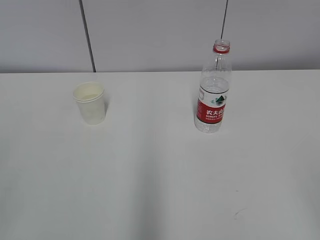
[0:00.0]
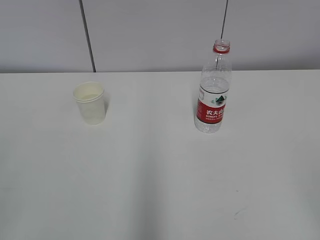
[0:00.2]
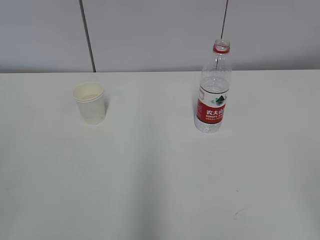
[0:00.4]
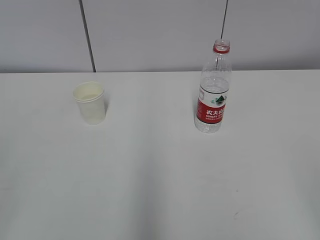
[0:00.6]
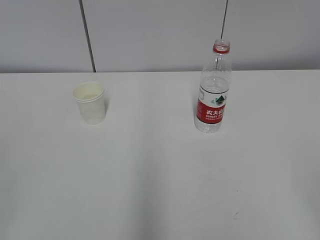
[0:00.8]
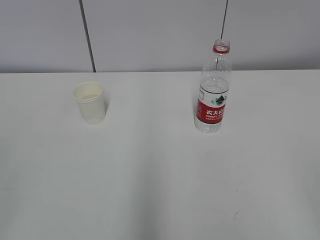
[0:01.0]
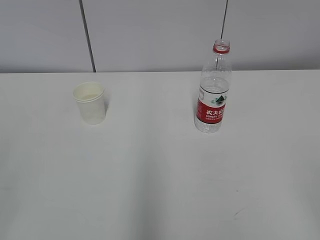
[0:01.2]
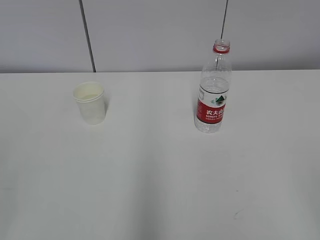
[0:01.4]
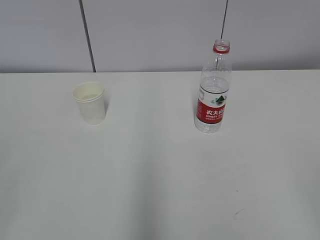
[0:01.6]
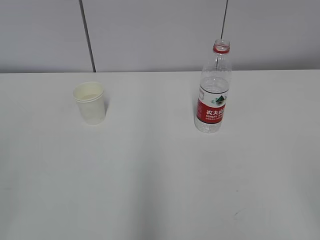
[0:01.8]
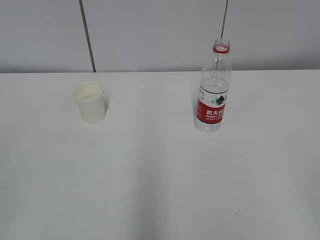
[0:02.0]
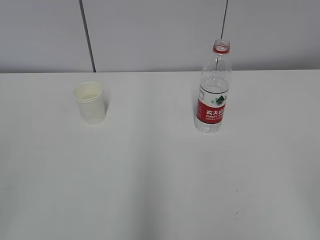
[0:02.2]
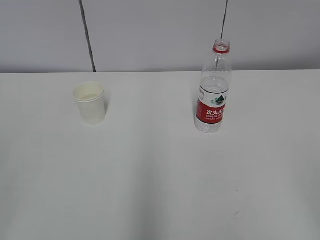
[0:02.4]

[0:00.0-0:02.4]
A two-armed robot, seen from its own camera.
0:00.0 to 0:02.4: Both grippers stay put.

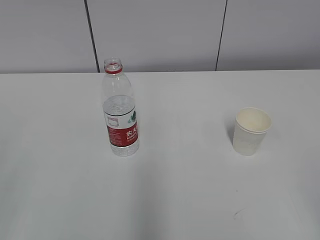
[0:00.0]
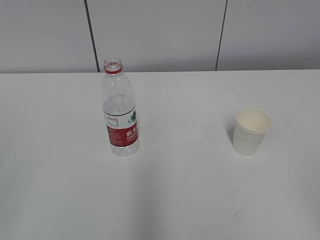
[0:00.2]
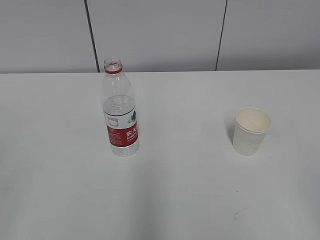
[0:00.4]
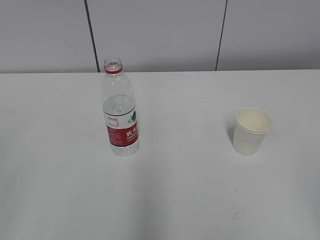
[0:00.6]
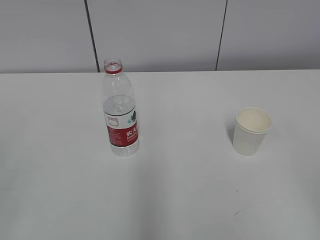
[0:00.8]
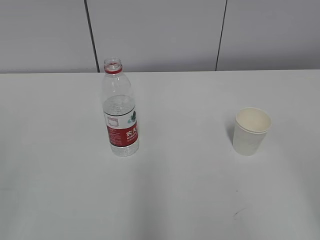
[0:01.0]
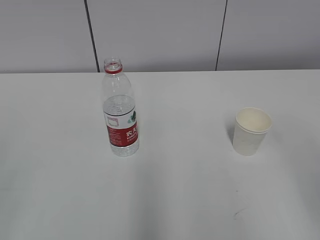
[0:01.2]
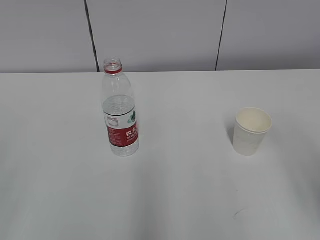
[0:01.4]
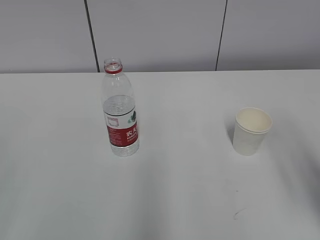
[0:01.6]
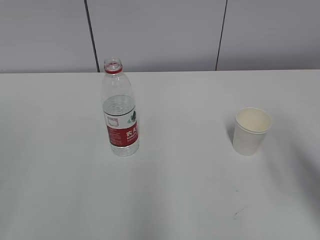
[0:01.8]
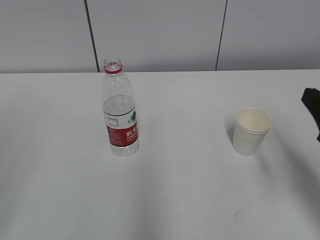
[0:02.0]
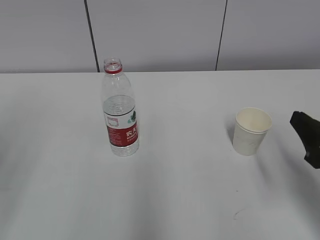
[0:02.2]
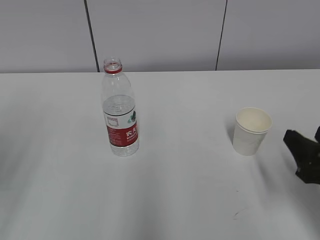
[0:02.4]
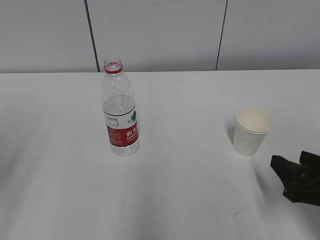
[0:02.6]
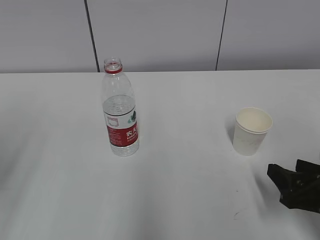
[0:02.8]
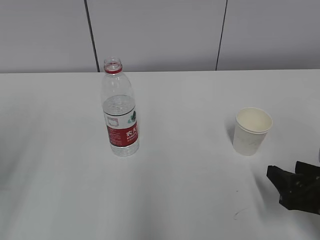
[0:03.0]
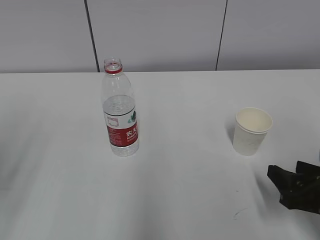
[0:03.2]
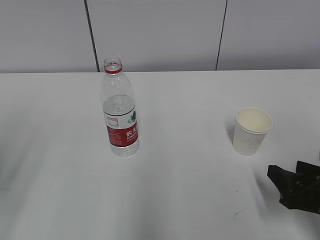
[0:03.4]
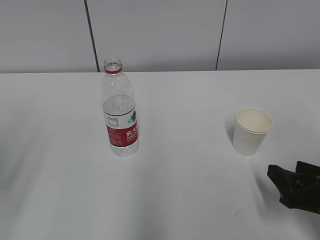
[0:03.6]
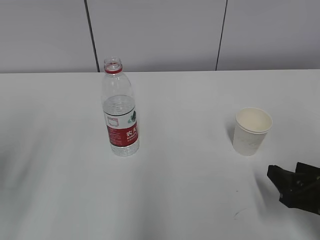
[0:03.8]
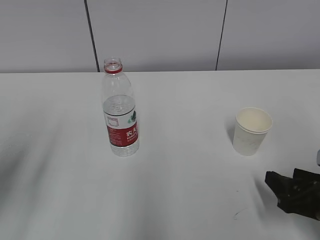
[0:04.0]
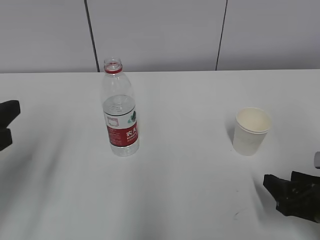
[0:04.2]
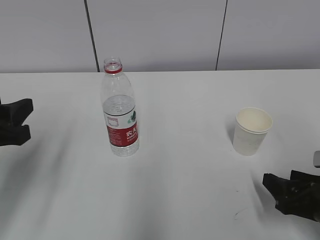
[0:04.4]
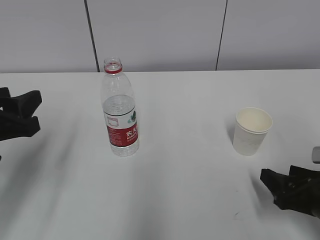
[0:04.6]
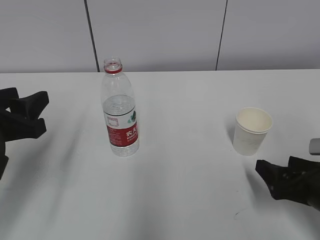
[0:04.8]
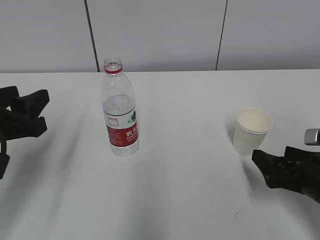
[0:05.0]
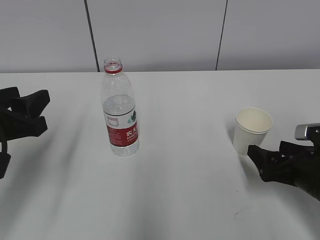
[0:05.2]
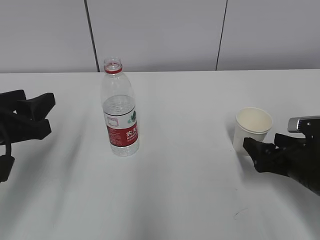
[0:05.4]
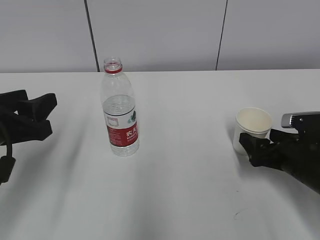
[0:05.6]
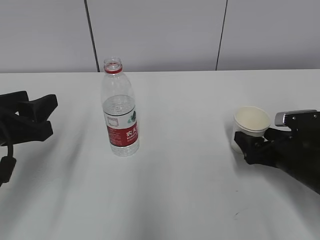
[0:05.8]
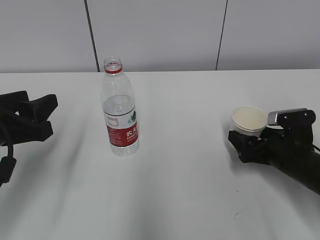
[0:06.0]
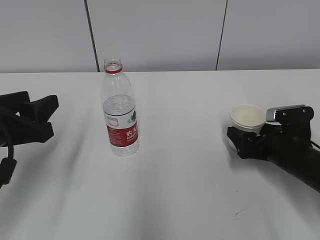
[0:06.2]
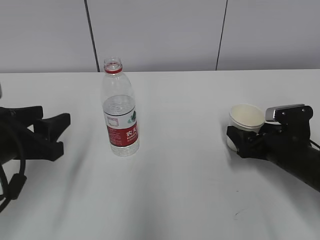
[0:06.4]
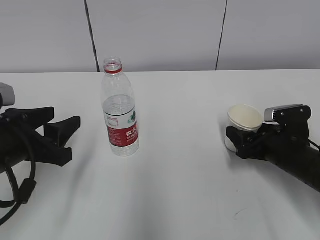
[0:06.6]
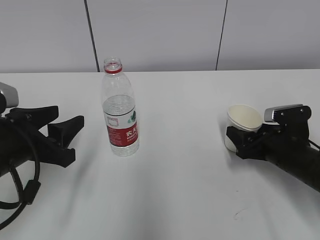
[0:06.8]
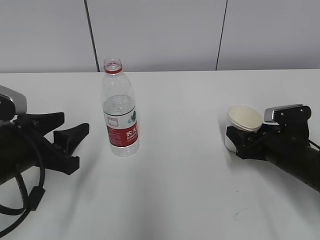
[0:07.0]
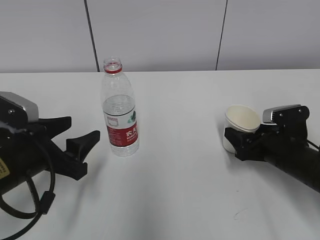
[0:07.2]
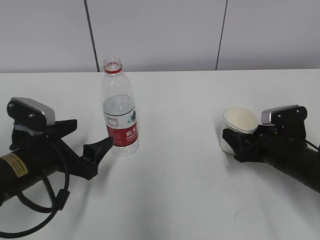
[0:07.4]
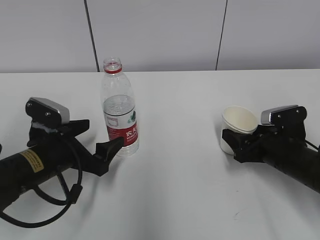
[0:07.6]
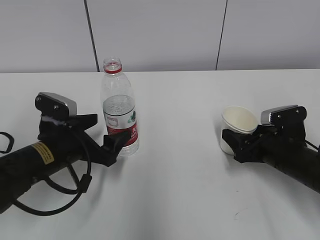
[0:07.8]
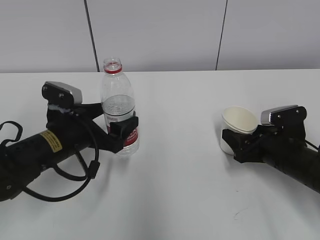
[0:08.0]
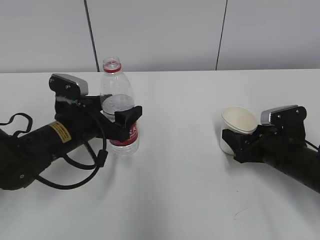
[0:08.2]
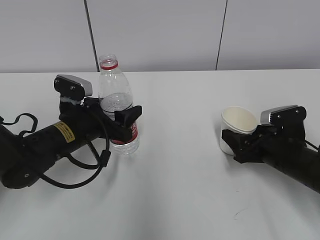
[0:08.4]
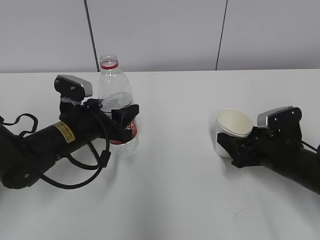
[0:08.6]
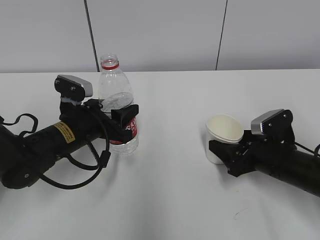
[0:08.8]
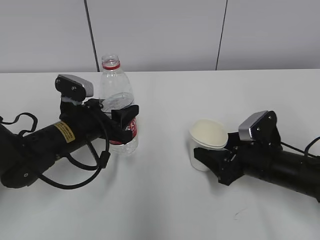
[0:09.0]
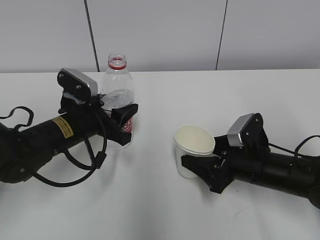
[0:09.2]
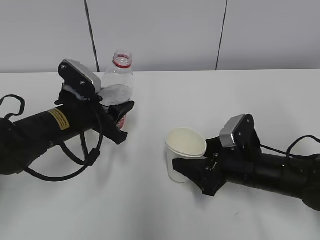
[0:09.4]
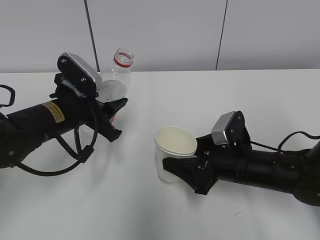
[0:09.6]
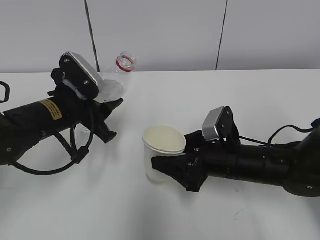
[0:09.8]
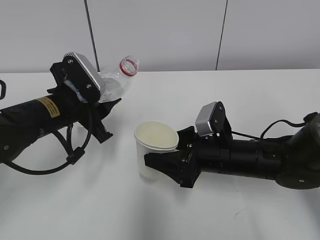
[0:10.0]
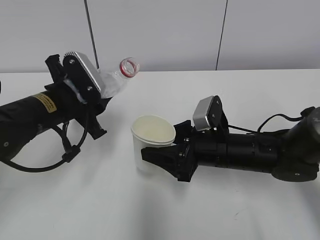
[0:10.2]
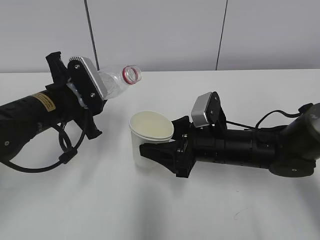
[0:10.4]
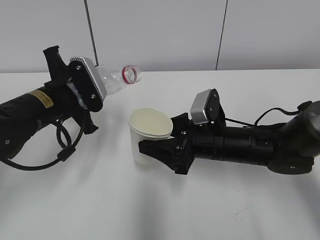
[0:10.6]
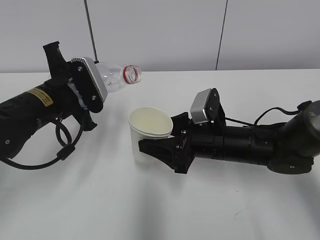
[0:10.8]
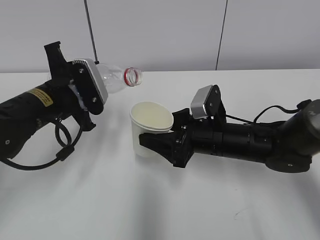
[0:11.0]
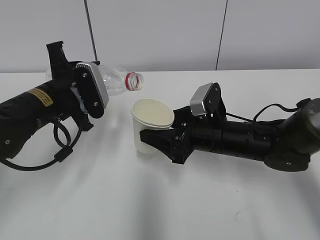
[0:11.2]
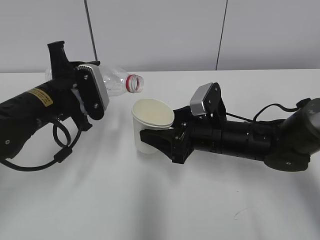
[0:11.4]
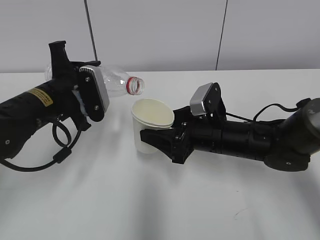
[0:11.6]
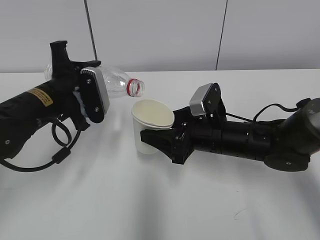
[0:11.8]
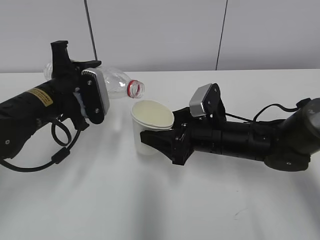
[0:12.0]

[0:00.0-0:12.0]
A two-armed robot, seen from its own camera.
Step, 0:00.0 to 0:06.8: Grab the paper cup with the right hand.
Step, 0:07.0 to 0:07.4: Grab the water bottle with the left hand.
Step, 0:07.6 to 0:10.2: Lift the paper cup with the right hand.
0:01.6 to 0:03.0: The right gripper shifts roughly 15 cm downward.
0:03.0 to 0:04.4: The left gripper goes approximately 10 cm forward, to the right and downward.
0:04.4 to 0:06.0: The right gripper is displaced forward by some 10 cm, and opens its fingers.
0:06.0 to 0:07.6: The left gripper heads downward and forward, covering about 10 cm, and opens its fingers. The right gripper closes.
0:07.6 to 0:09.0: The left gripper heads forward, covering approximately 5 cm, and closes.
0:09.0 to 0:10.4: The right gripper moves to the left, some 10 cm. The left gripper heads upward, covering some 5 cm.

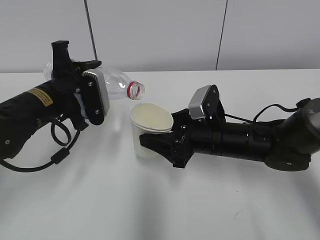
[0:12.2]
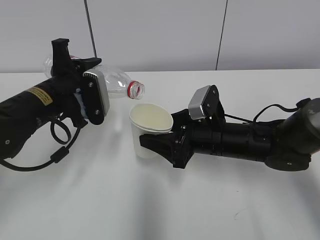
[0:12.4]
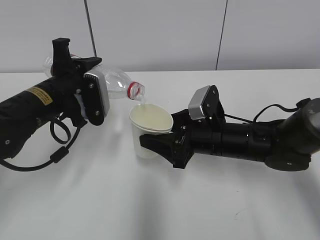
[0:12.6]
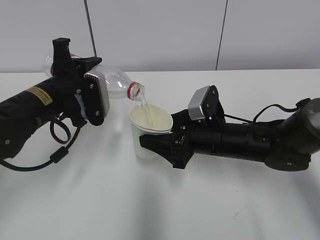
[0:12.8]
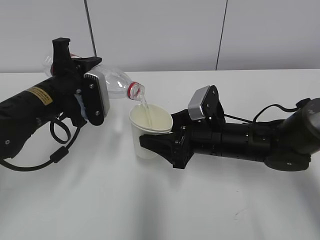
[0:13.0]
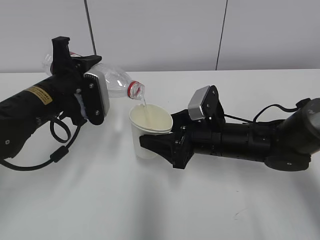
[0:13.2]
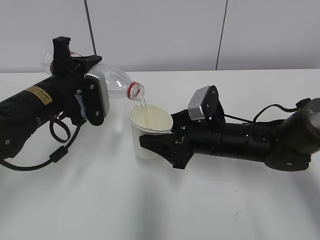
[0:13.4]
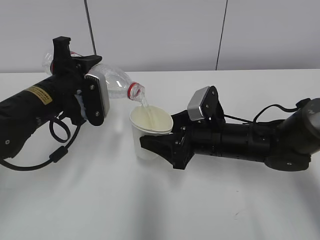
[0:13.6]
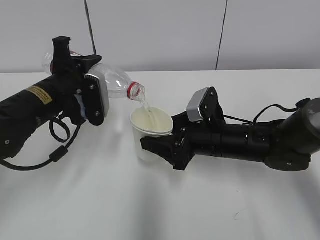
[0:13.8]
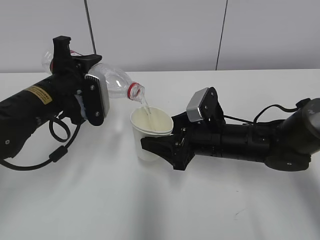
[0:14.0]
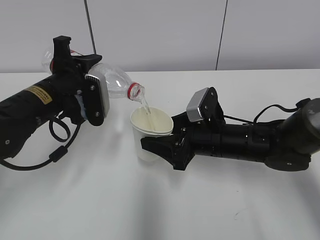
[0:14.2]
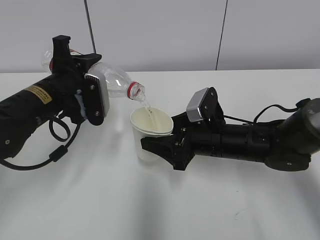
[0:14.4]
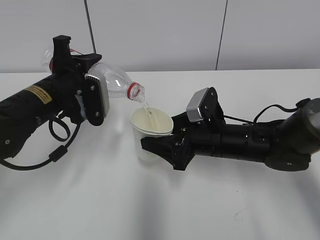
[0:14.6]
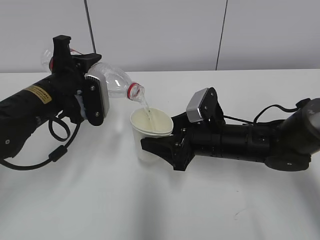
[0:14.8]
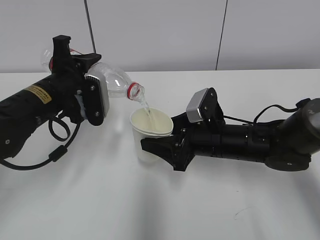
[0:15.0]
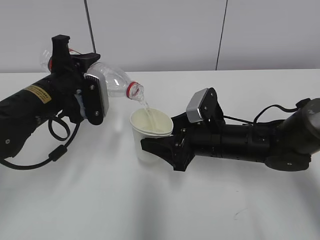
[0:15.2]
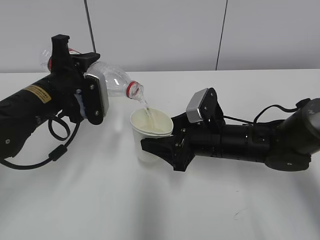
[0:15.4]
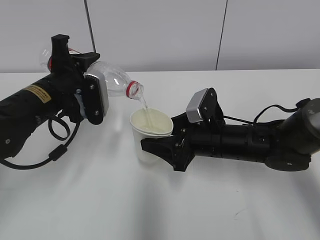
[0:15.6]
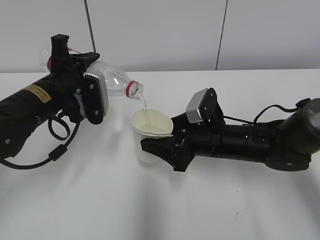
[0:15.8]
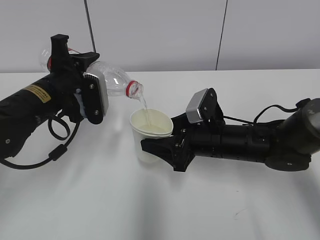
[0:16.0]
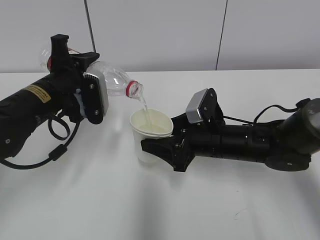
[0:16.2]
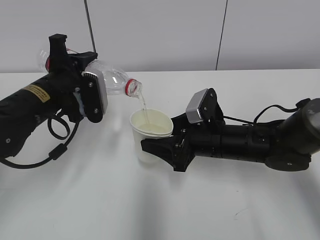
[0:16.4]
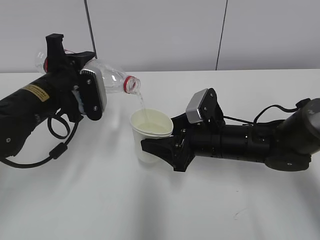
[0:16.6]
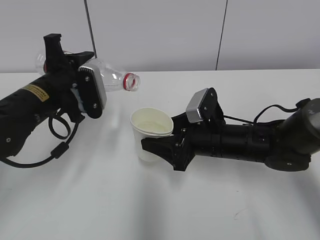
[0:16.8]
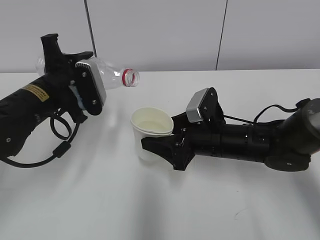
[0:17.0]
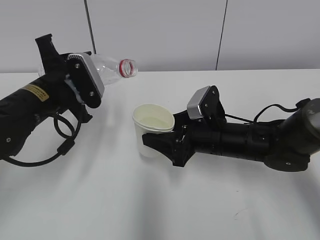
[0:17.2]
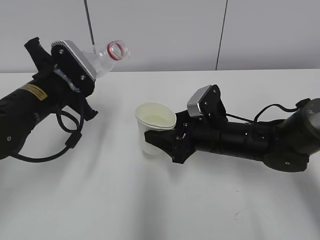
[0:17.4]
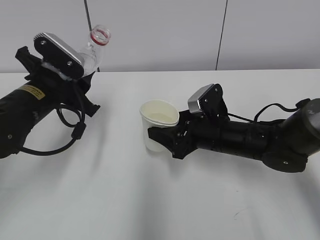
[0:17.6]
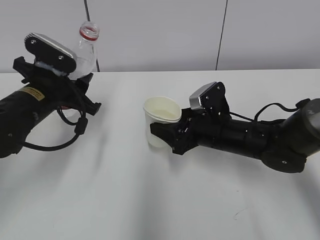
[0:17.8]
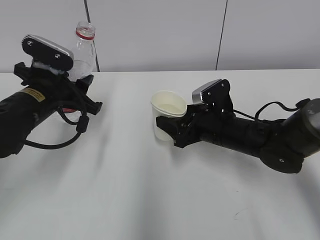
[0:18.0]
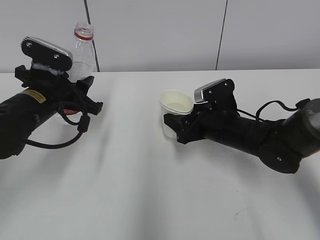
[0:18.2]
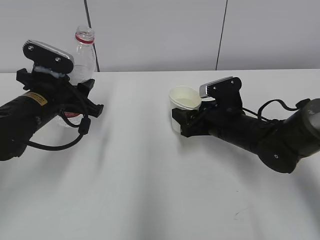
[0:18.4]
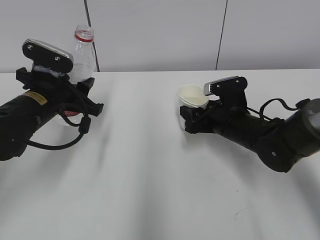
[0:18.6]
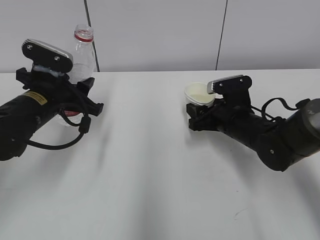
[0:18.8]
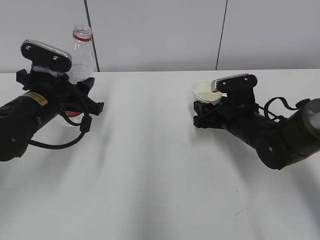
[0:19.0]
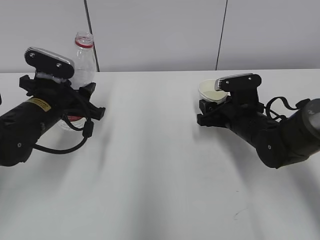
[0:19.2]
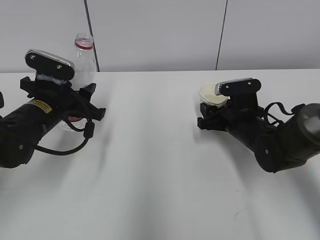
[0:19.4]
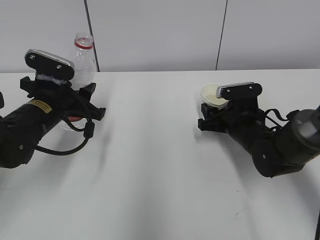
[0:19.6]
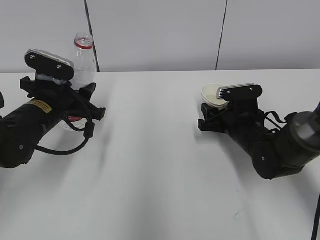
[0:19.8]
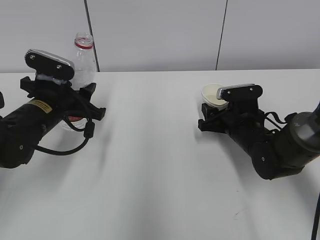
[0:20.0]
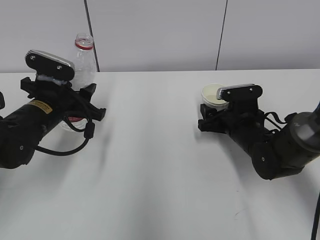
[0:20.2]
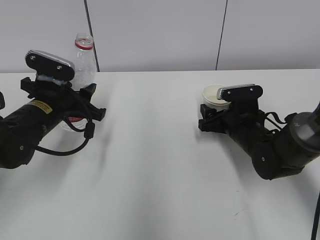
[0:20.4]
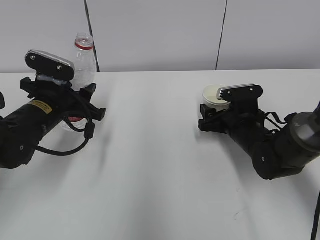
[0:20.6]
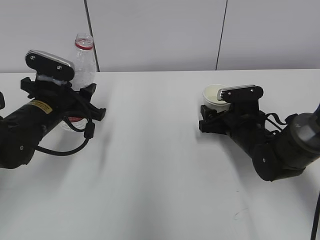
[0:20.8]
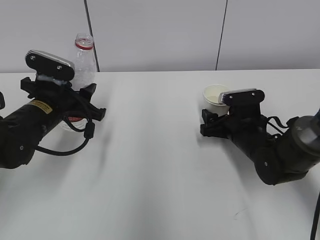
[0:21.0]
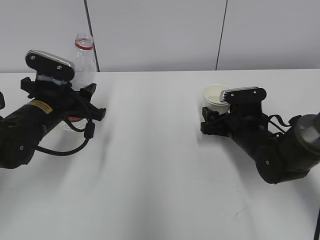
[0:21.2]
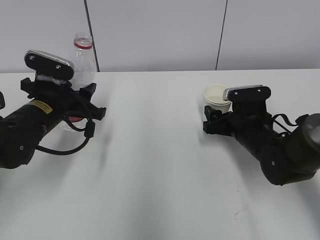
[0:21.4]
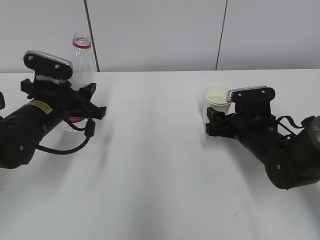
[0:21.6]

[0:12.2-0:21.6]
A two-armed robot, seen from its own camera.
Step, 0:12.2 to 0:14.0: Fill water with the right hand.
Step, 0:12.2 to 0:14.0: Pour water with the left hand.
Step, 0:15.2 to 0:17.0: Place the water bottle with the left hand.
Step, 0:17.2 to 0:19.6: Place the paper cup with the right hand.
0:12.2 to 0:13.8: There are only small adjustments of the grippers.
0:13.8 to 0:15.4: Both grippers stay put.
0:15.4 to 0:17.0: The grippers make only small movements.
0:20.0 to 0:21.6: The right gripper opens.
